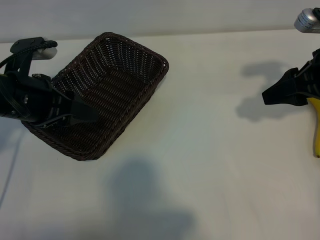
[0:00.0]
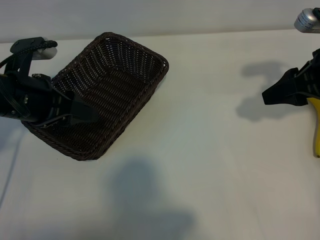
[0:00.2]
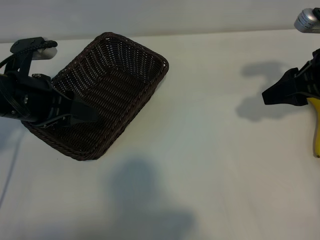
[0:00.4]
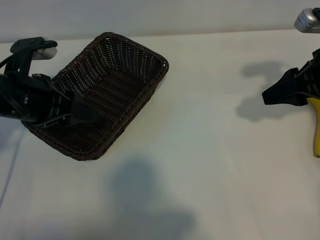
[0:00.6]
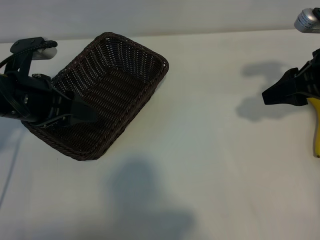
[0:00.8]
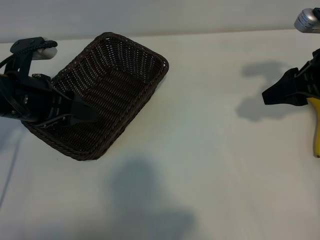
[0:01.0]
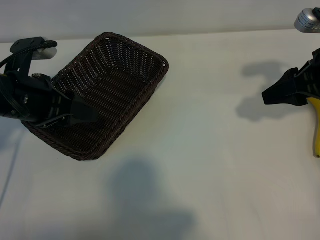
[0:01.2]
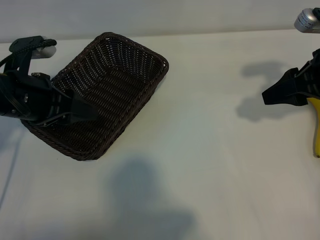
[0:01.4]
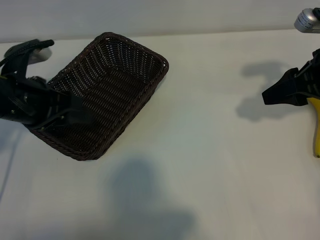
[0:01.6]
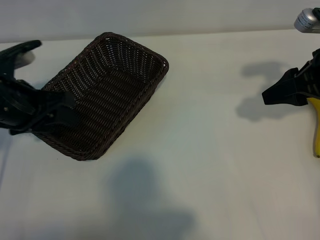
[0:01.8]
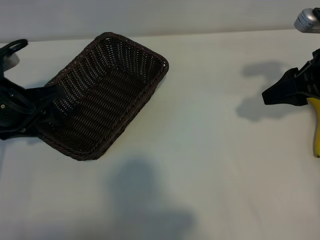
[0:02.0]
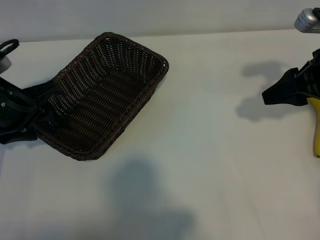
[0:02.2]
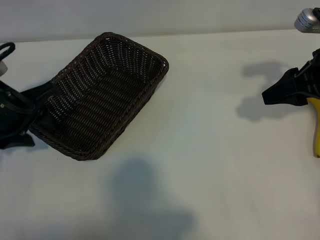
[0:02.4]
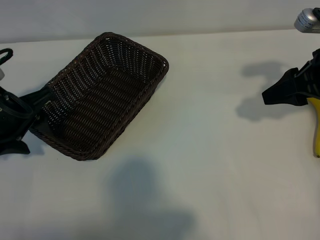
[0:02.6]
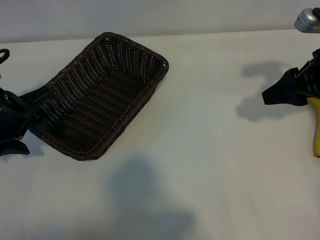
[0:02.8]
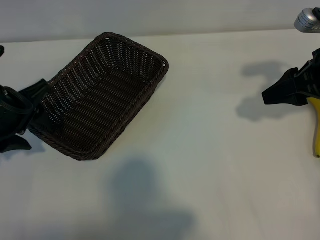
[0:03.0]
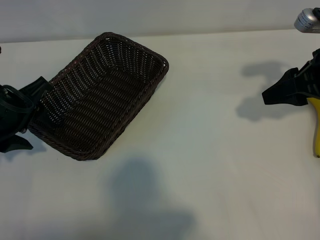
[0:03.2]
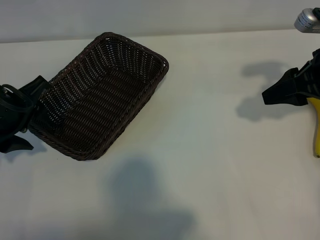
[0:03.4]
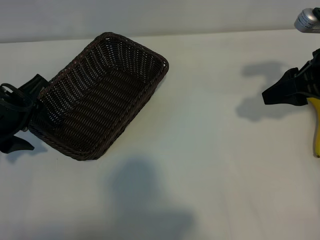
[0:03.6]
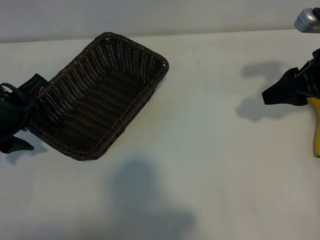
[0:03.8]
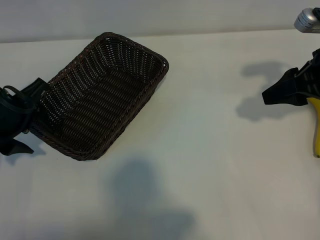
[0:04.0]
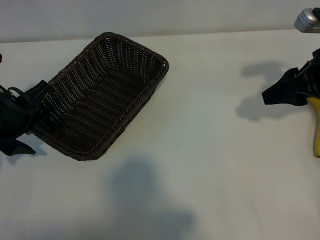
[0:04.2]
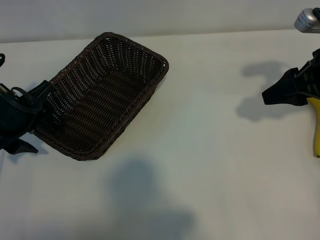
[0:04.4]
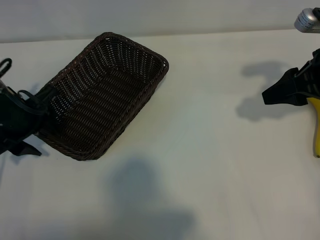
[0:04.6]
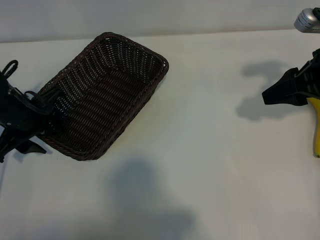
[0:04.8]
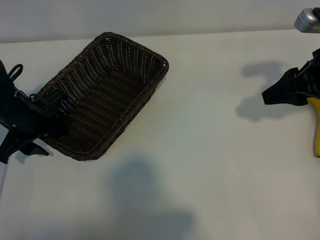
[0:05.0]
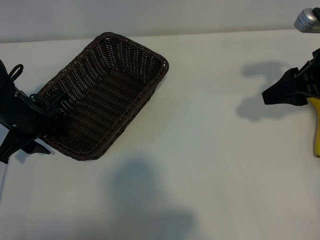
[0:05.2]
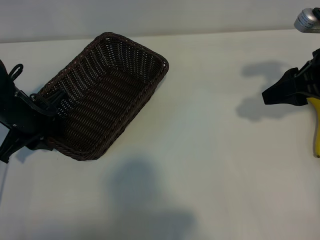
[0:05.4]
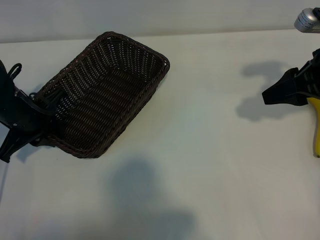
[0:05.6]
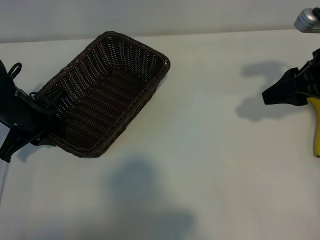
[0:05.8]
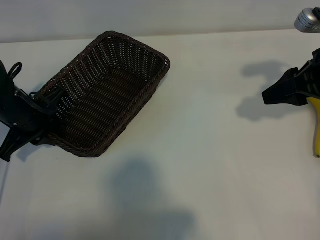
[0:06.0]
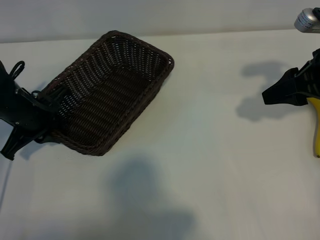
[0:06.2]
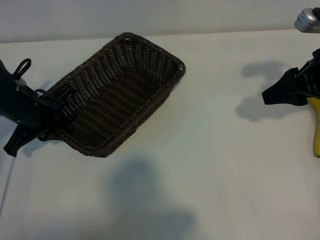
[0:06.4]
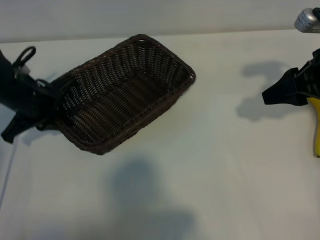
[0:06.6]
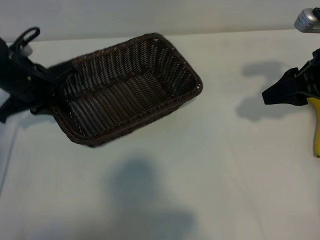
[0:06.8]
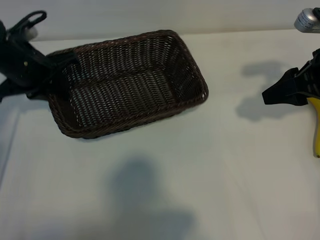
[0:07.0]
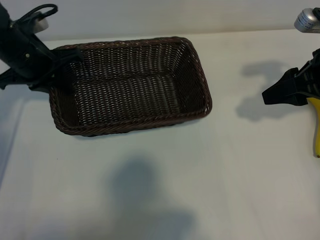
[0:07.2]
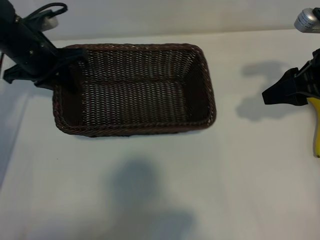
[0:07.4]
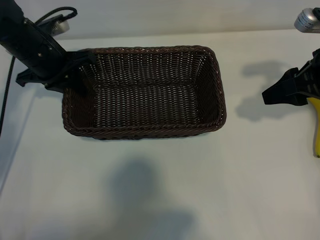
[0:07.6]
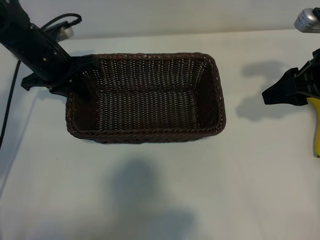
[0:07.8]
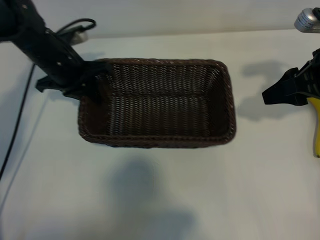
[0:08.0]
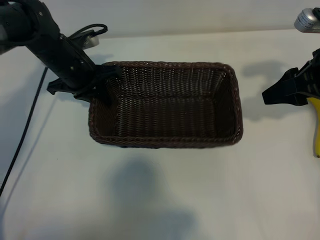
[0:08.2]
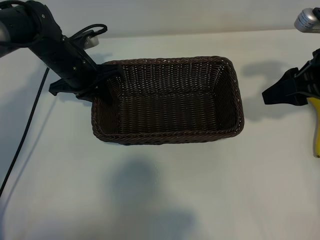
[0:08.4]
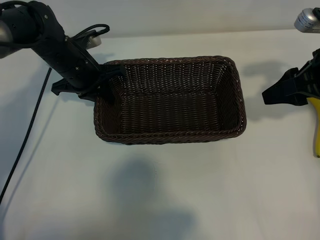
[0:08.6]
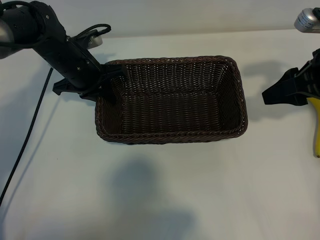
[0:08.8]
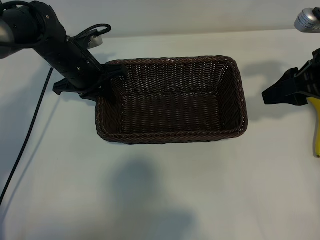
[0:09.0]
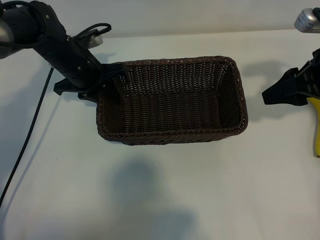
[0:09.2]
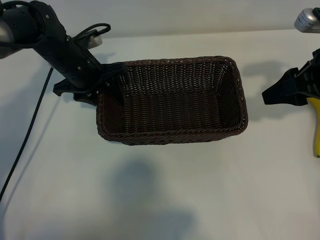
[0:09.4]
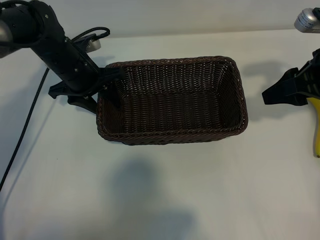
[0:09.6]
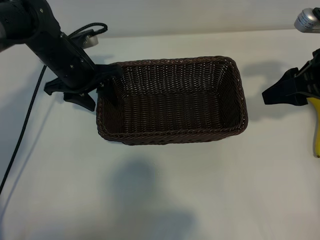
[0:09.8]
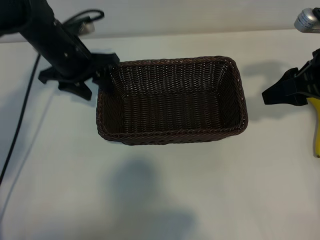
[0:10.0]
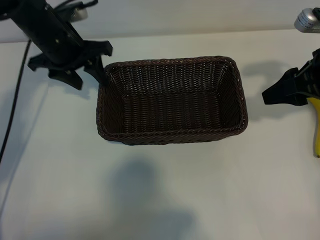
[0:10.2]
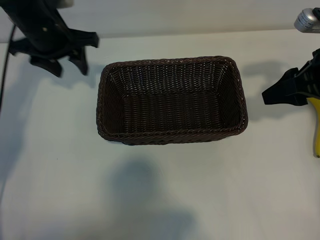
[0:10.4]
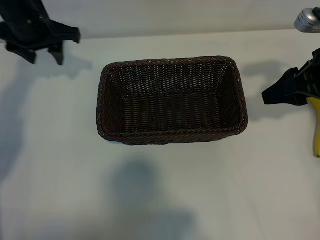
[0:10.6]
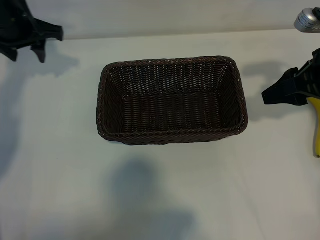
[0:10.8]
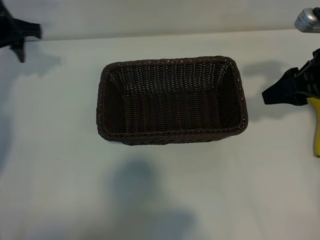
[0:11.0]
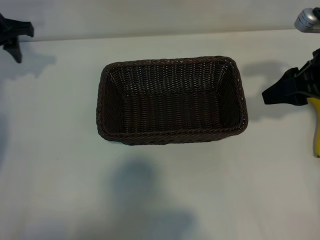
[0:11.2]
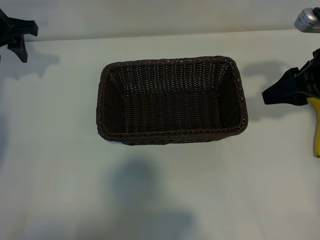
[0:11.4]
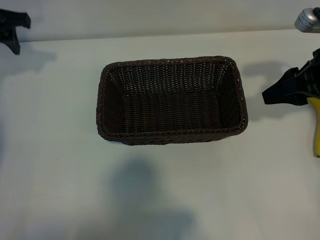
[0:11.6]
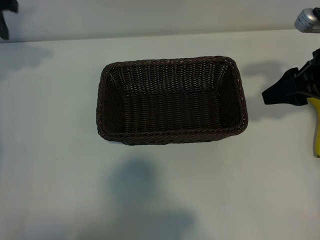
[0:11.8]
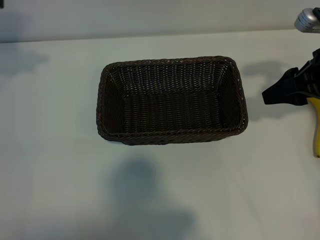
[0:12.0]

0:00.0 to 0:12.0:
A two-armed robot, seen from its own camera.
Task of the whole recording: pick up the banana and put it into the basket.
Step, 0:01.4 to 0:05.8: Grasp the basket with the left gripper.
Step, 0:06.2 to 0:09.6: Place the basket in the center of the table with the left gripper.

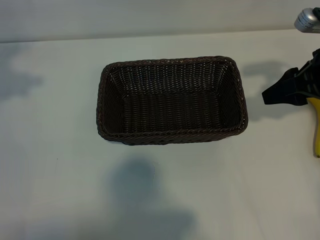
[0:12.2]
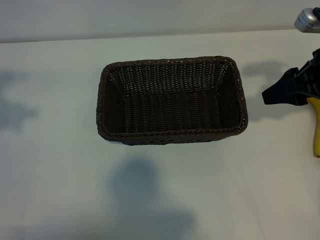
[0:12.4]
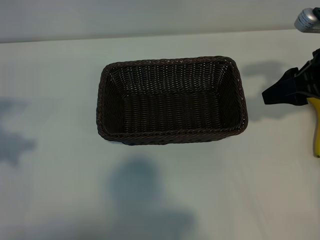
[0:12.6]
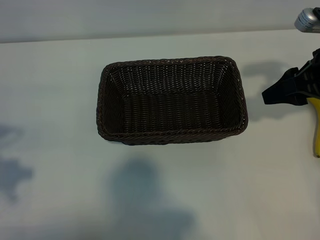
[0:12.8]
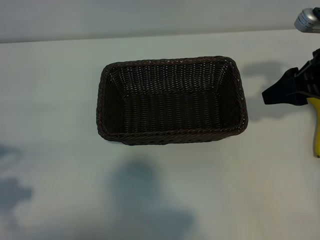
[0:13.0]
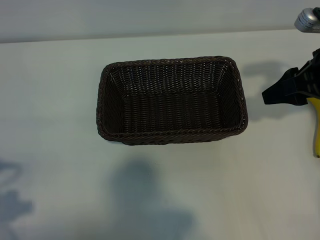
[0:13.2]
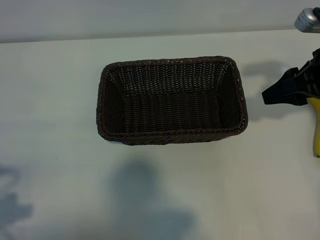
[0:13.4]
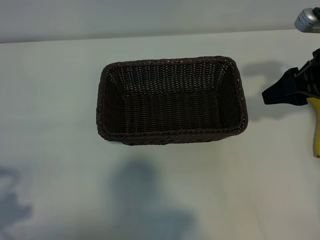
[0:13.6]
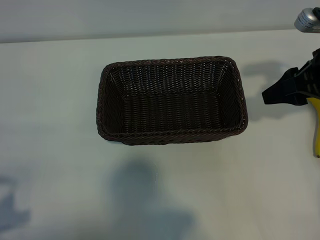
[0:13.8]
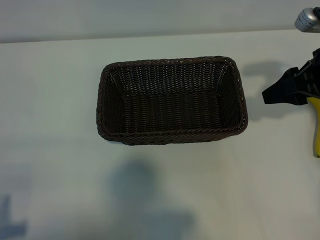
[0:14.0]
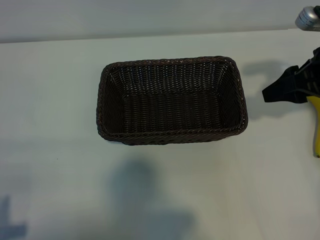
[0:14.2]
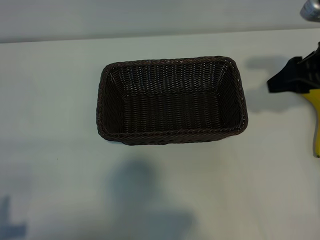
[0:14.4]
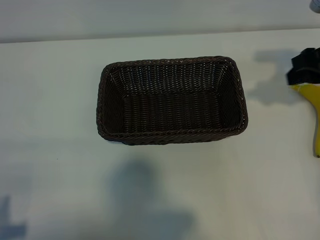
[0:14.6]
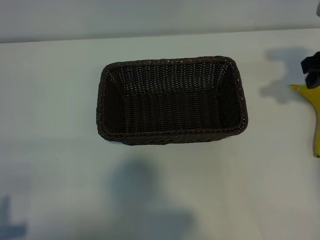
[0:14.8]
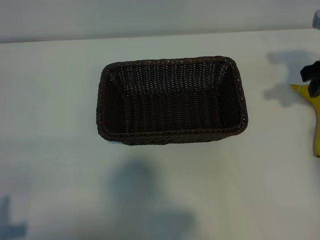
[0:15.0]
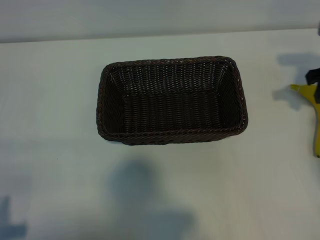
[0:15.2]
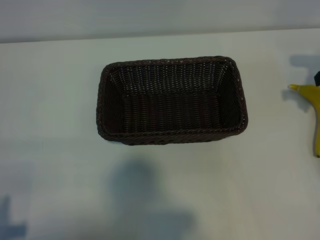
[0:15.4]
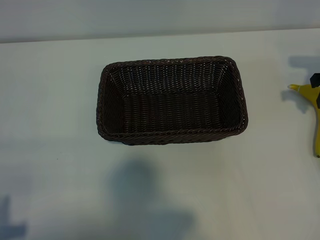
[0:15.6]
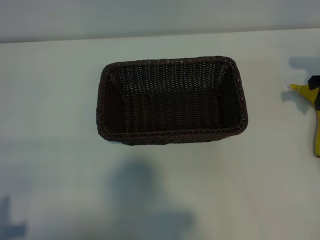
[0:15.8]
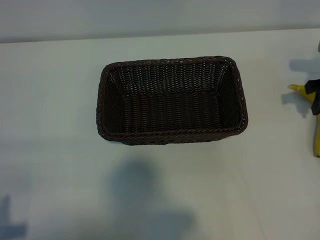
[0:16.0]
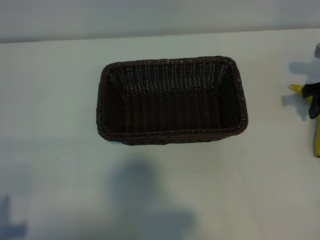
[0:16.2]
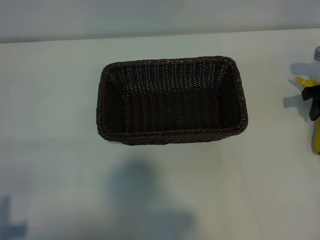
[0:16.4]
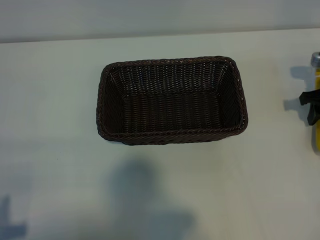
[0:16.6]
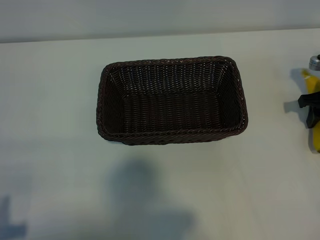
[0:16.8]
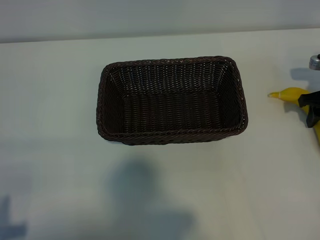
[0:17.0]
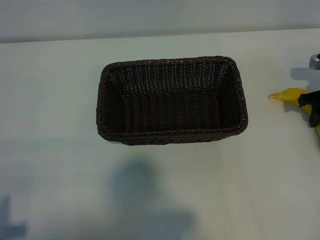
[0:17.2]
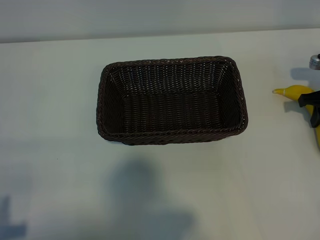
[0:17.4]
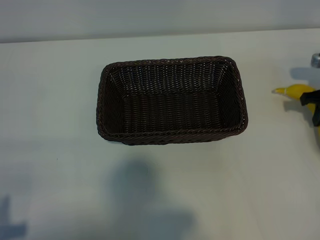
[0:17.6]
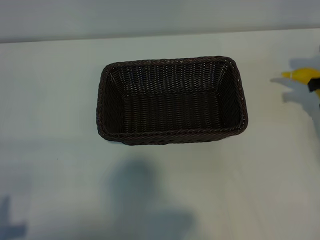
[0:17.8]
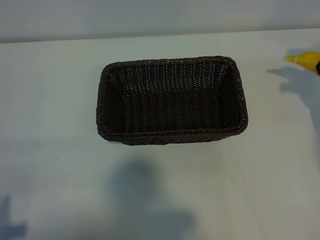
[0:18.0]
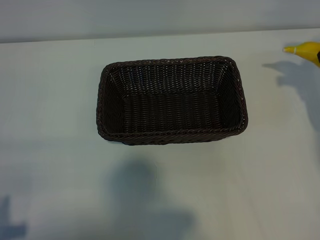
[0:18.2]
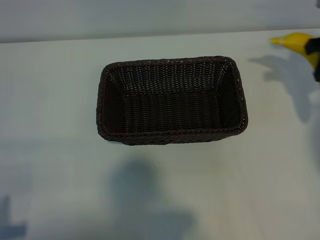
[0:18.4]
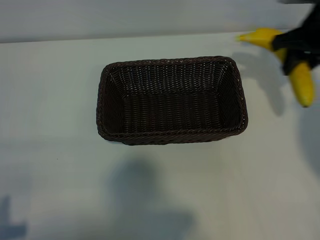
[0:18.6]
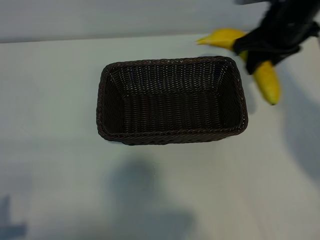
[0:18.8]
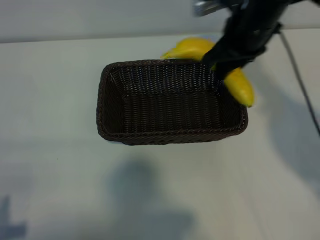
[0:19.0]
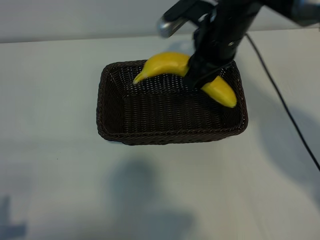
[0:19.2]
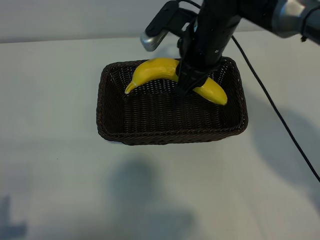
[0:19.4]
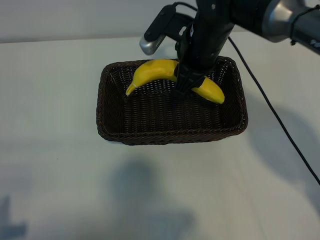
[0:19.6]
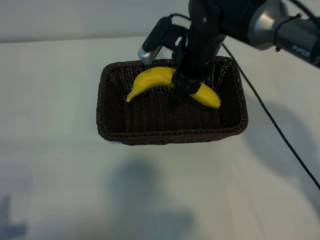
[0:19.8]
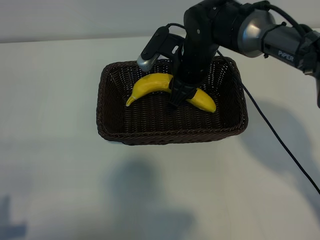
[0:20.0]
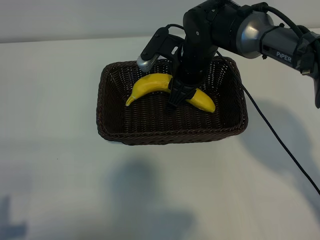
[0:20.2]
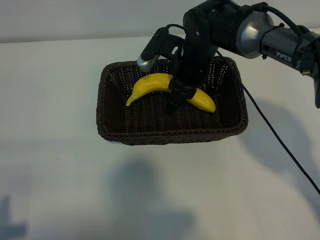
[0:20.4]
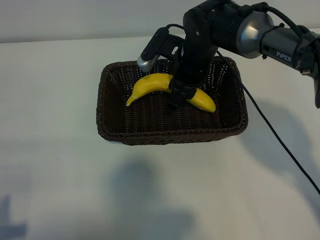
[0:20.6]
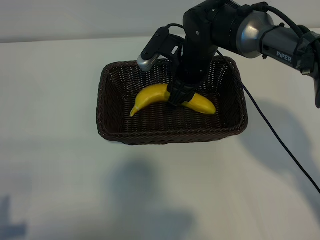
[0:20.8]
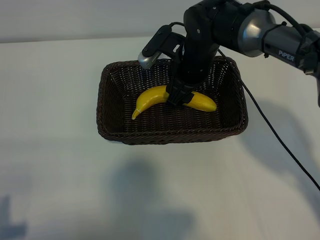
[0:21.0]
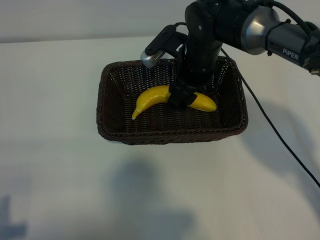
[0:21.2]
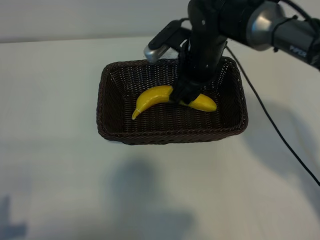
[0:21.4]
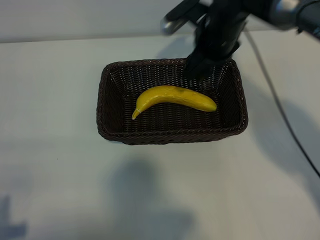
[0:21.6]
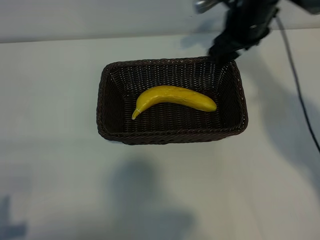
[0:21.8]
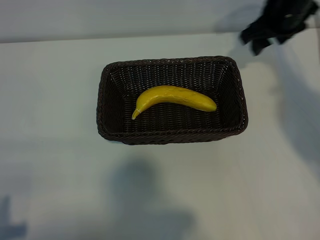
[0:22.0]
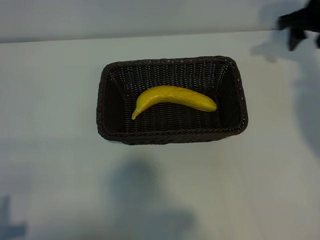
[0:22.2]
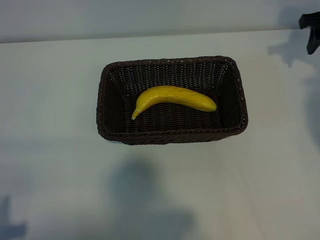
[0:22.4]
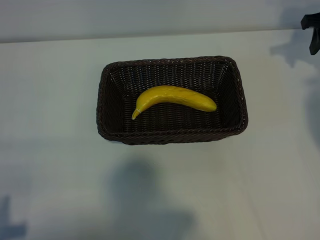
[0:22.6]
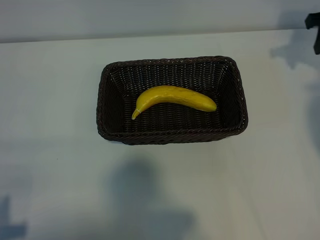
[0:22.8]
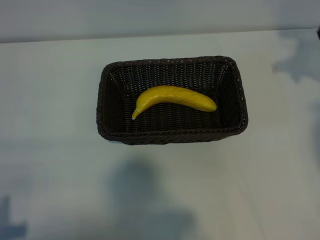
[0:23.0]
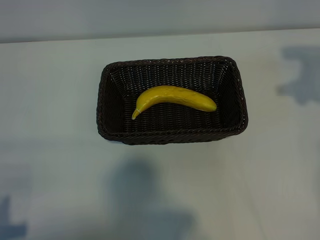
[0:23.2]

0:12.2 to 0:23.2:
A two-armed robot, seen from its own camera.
Task of the whole recording: pick up the banana and put it into the basket.
Step, 0:12.2 to 0:17.2: Grasp the banana with right gripper.
Step, 0:17.4 to 0:21.4: Place the banana in the basket with right gripper.
